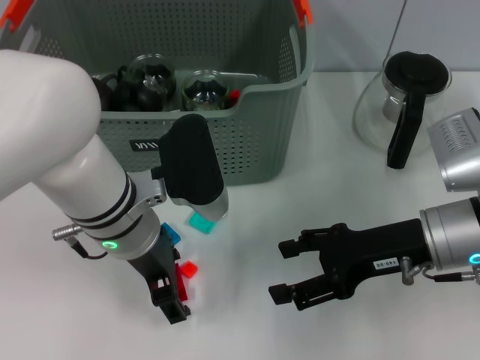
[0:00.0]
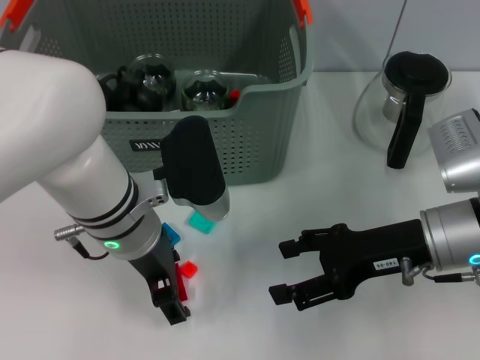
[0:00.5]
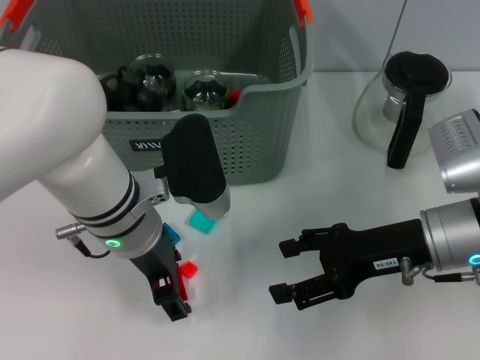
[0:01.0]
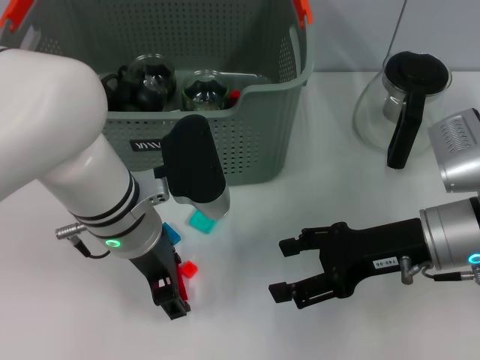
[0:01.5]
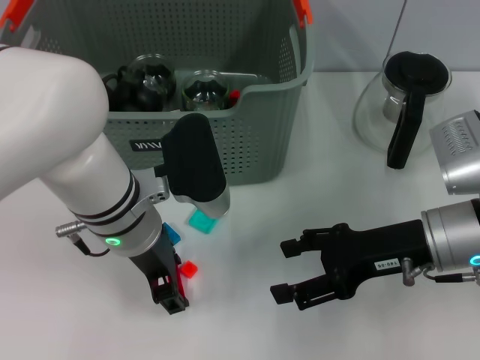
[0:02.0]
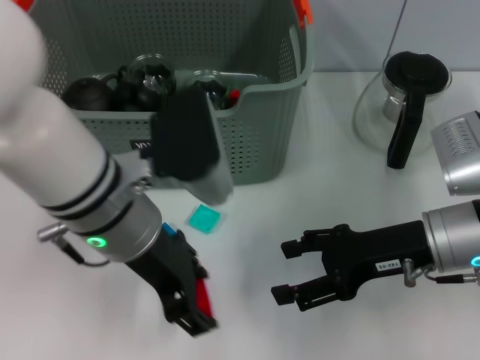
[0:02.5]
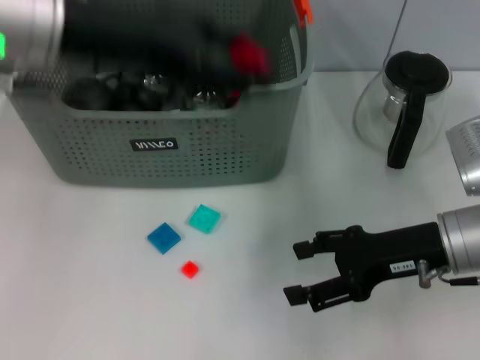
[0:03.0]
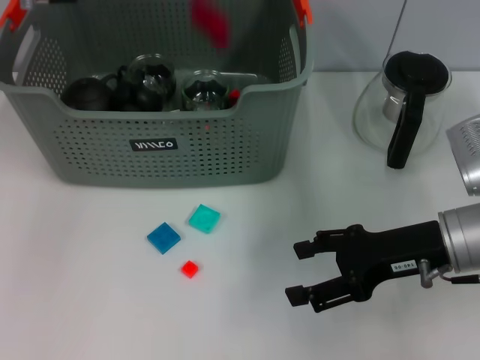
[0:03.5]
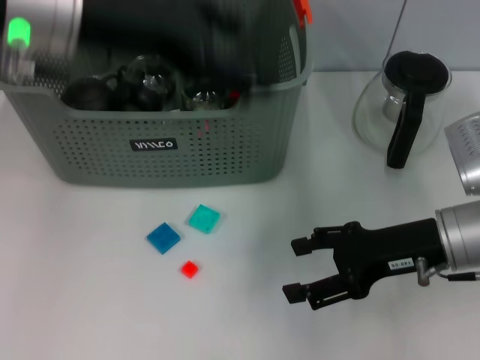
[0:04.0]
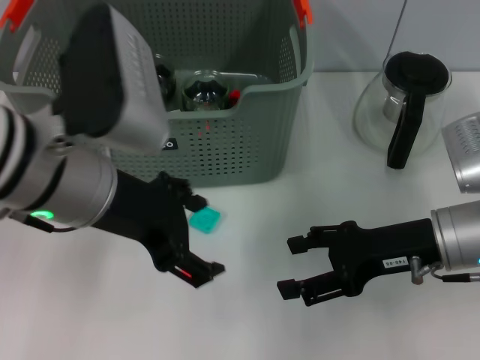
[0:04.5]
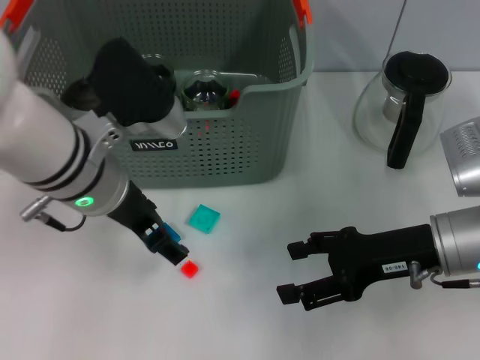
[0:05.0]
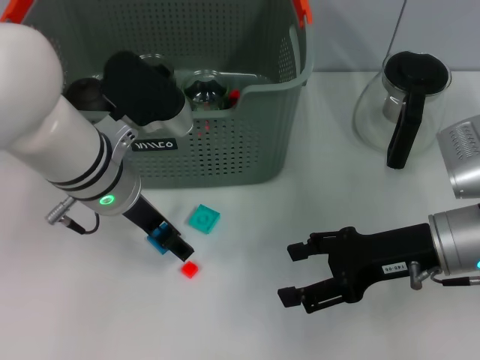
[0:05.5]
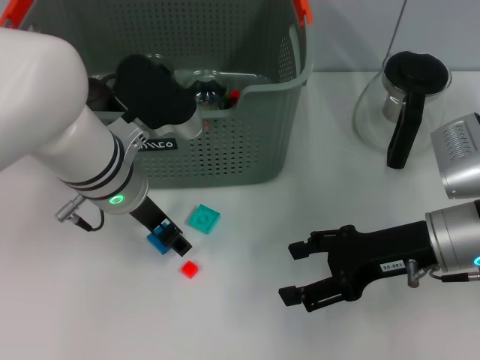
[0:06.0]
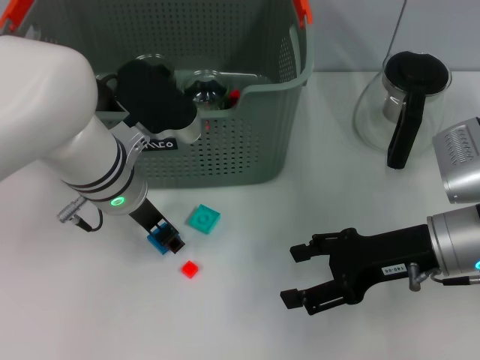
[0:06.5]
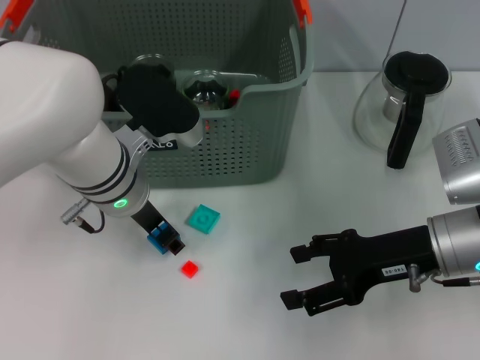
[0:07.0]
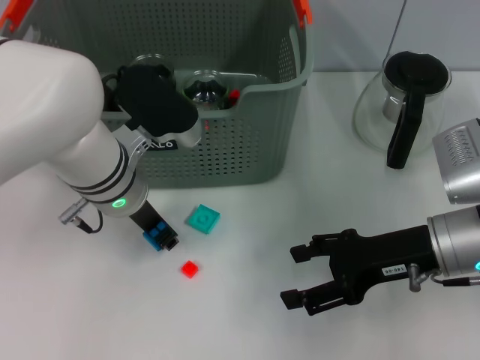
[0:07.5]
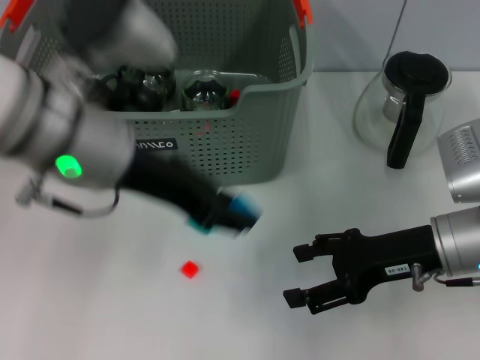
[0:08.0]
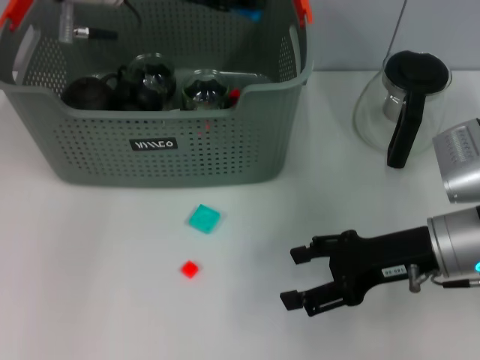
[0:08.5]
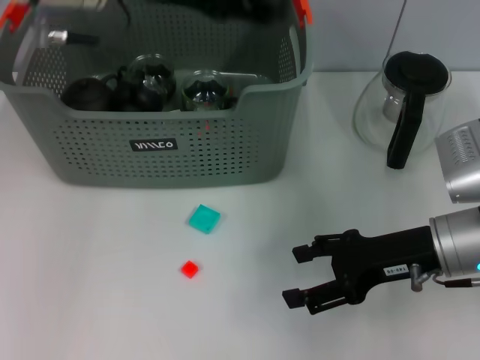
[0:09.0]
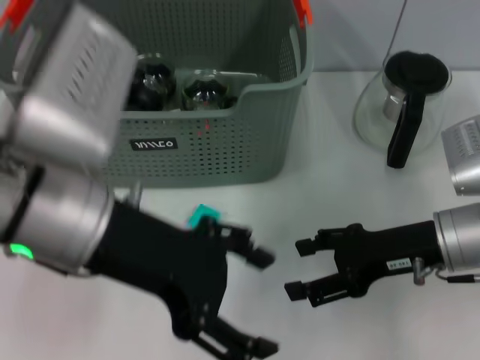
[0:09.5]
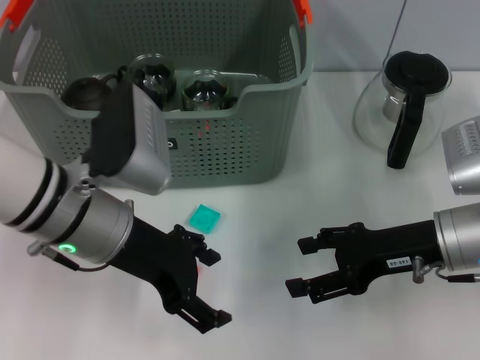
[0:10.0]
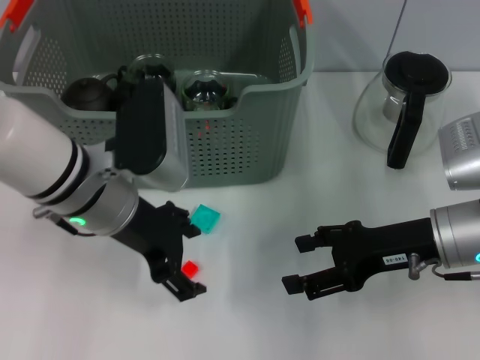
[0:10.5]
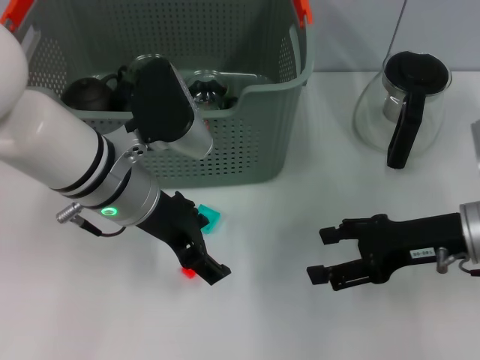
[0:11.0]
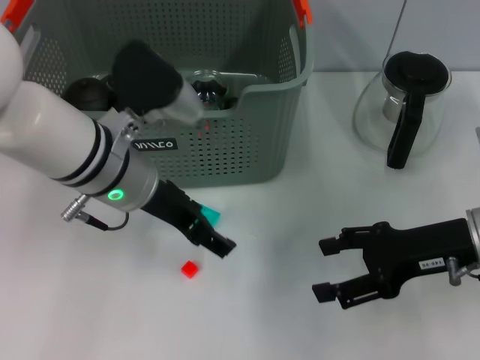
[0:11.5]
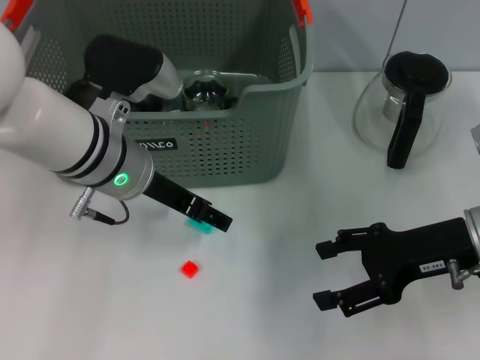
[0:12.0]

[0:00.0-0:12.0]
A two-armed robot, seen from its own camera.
Task of the whole recording: pick up the teacup on the table and place it into the storage bin, pick up the block on the table and place it into the storage bin.
Step, 0:02.5 to 0:03.5: Place the red block in the storage box with left gripper.
Step, 0:04.0 to 0:07.0: Grasp the dark blue block with left gripper.
Step, 0:08.0 to 0:08.5: Place the dark blue block in the storage box with left gripper.
0:00.0 to 0:02.0: Both grippers stay about where they are.
0:02.0 to 0:04.0: The left gripper goes roughly 15 cm upward.
0:04.0 to 0:06.0: The left gripper heads downward, covering about 15 cm.
0:06.0 to 0:08.0: The left gripper travels upward by roughly 10 cm, and closes its fingers.
0:08.0 to 0:10.0: The left gripper swings forward and backward, some 15 cm each way, with 2 reversals, and opens.
0:10.0 to 0:12.0: The left gripper travels forward by approximately 5 cm.

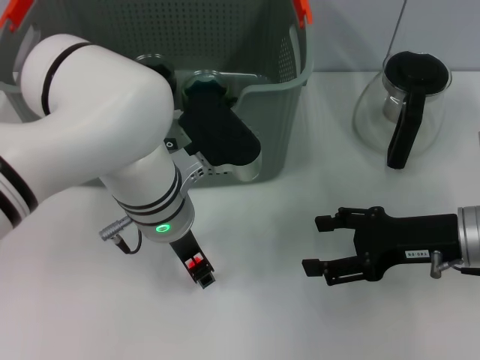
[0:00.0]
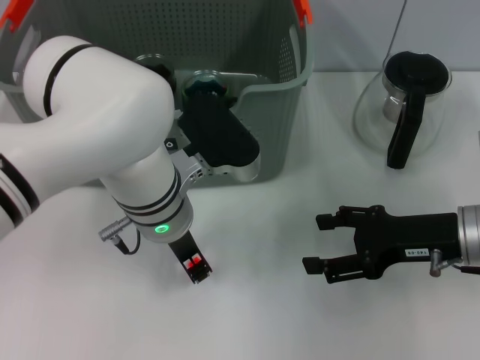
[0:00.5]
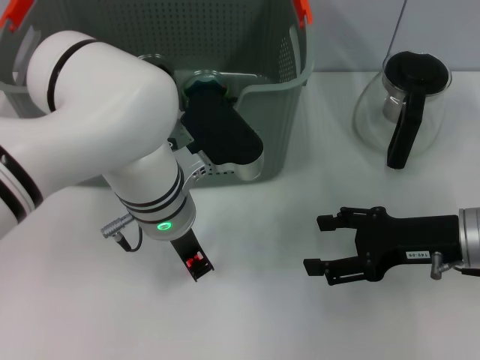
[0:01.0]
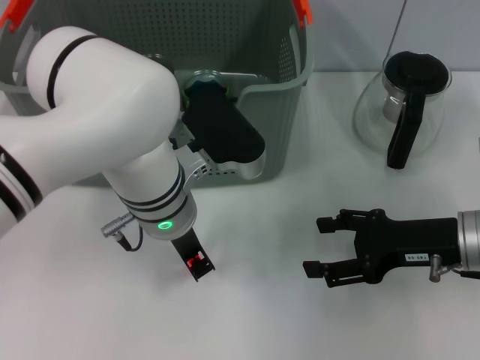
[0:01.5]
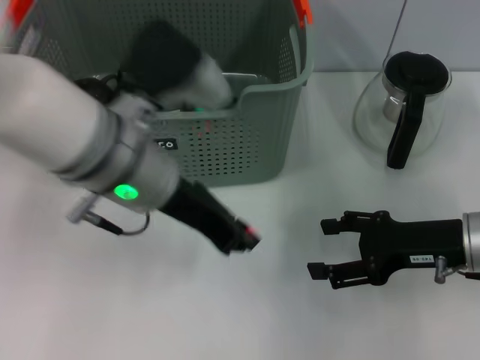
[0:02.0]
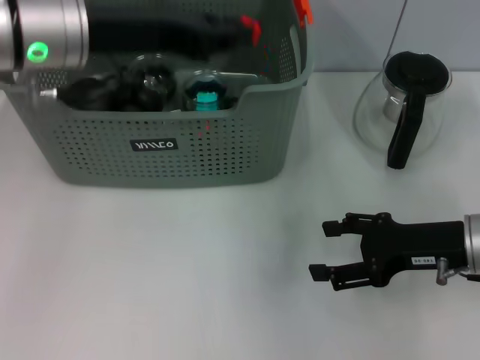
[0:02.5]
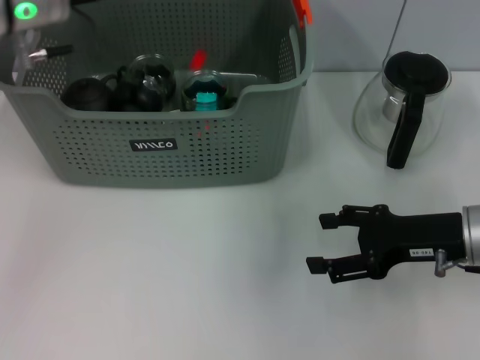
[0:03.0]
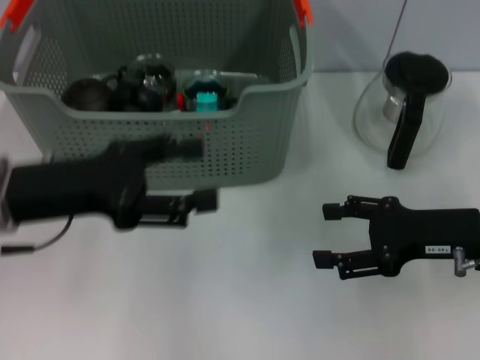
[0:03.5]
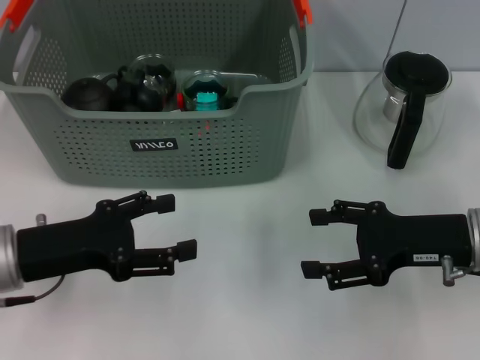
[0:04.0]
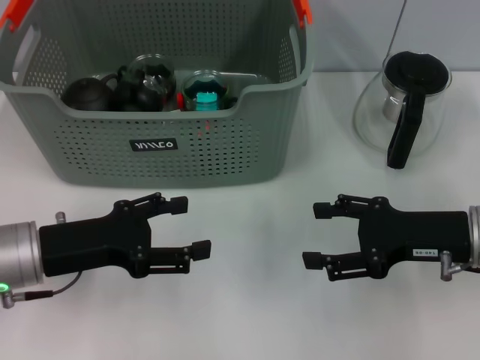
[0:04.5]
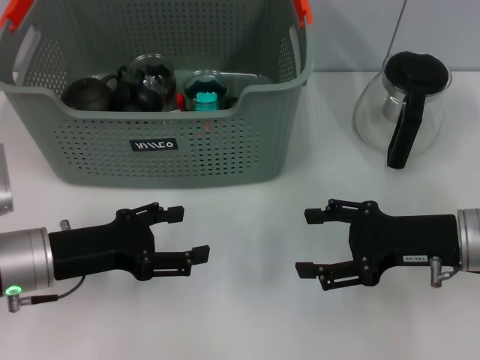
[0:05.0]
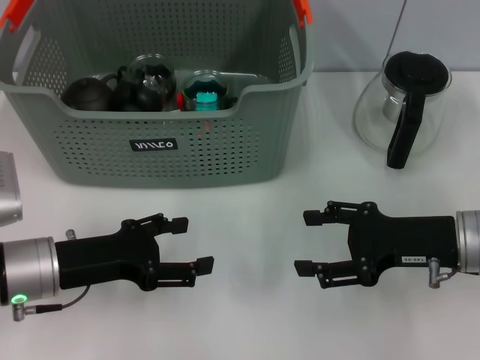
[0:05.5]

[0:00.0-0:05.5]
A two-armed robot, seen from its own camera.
Task of the whole recording: pick up the teacup on the table and place it into the storage bin, pick up the block on the table and place it into the storage bin.
0:00.0 to 0:02.0: The left gripper goes about 5 cm upward, and closes.
0:02.0 to 0:03.5: The left gripper is displaced to the left by some 15 cm, and opens.
0:03.5 to 0:05.5: The left gripper goes roughly 10 cm downward.
